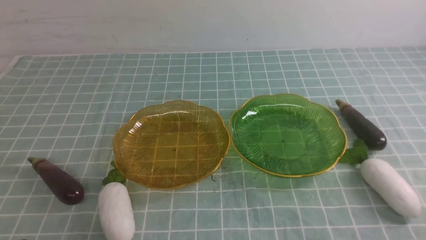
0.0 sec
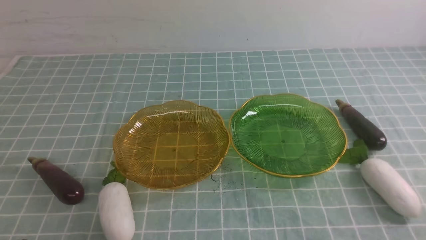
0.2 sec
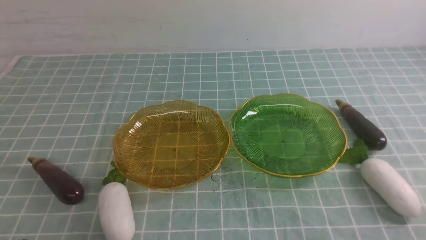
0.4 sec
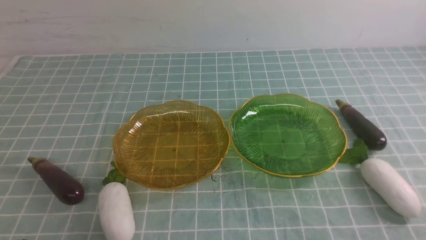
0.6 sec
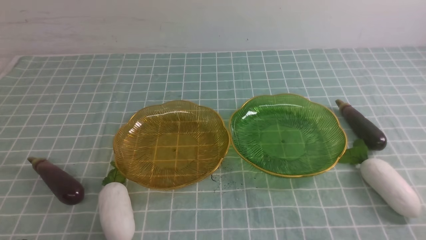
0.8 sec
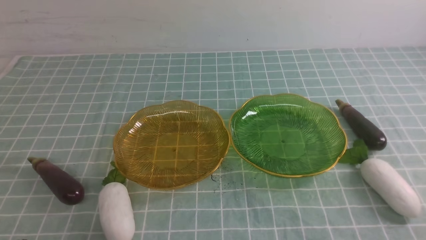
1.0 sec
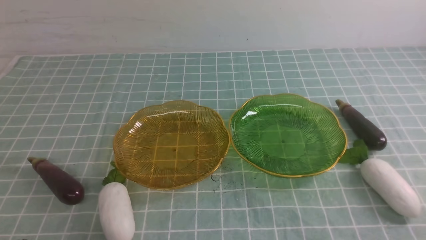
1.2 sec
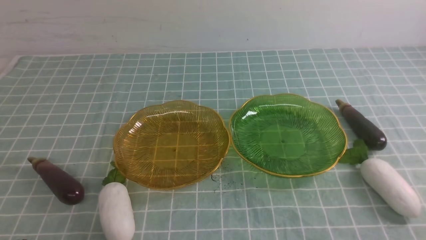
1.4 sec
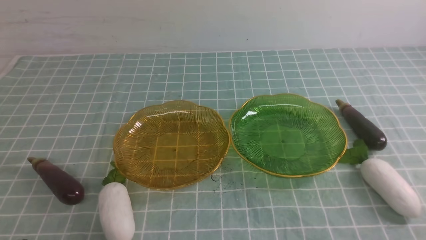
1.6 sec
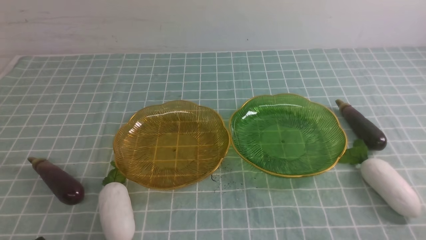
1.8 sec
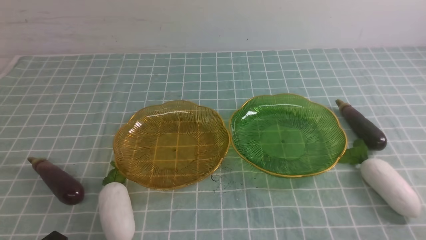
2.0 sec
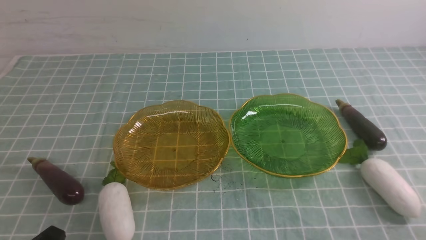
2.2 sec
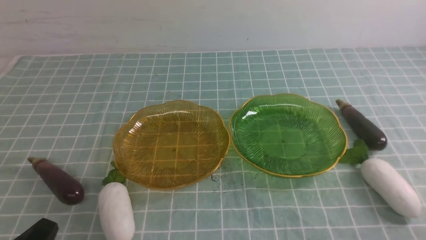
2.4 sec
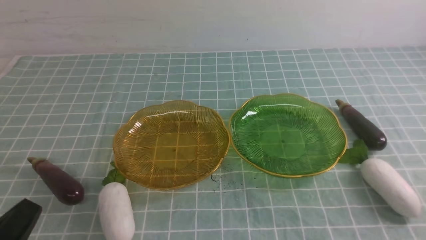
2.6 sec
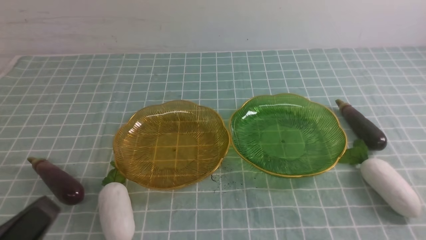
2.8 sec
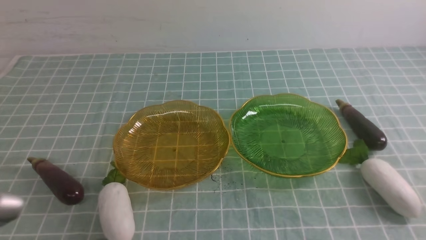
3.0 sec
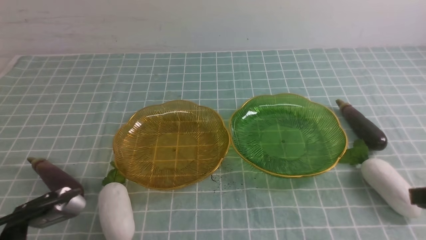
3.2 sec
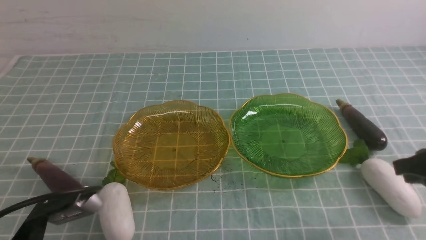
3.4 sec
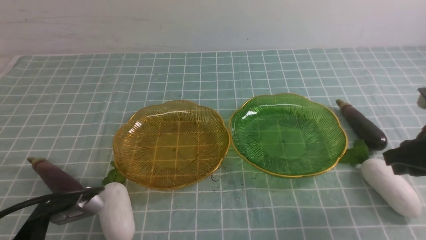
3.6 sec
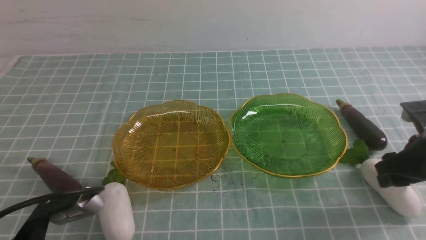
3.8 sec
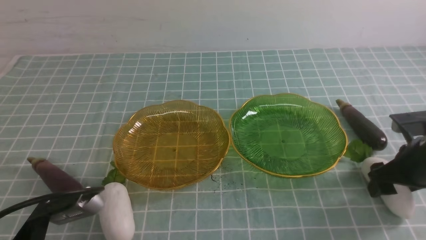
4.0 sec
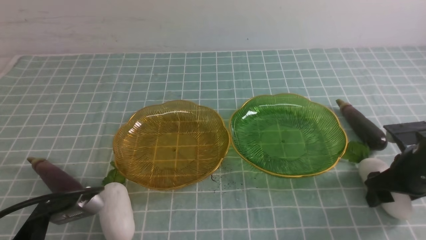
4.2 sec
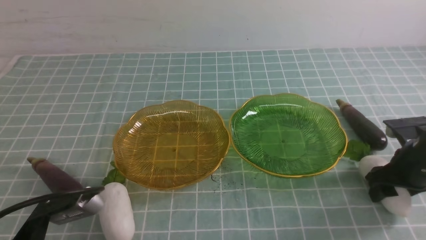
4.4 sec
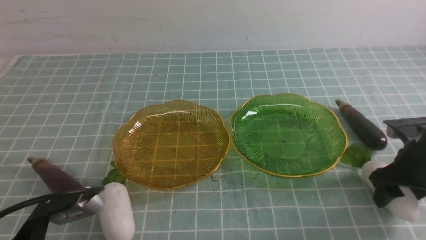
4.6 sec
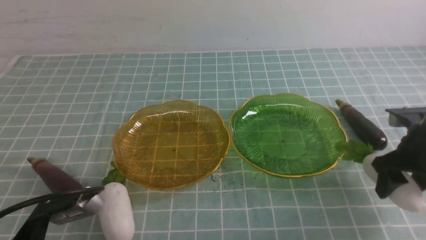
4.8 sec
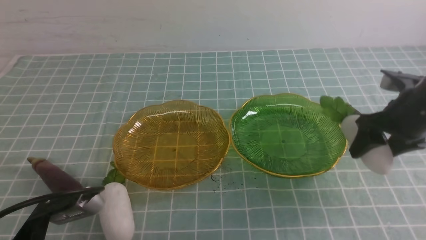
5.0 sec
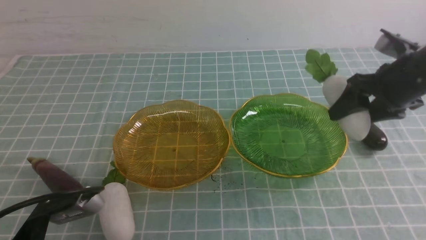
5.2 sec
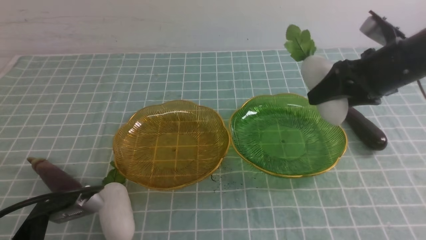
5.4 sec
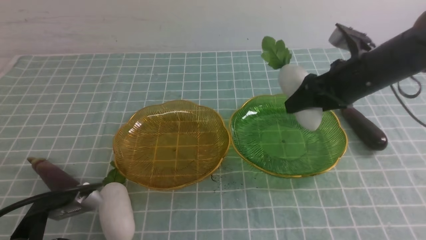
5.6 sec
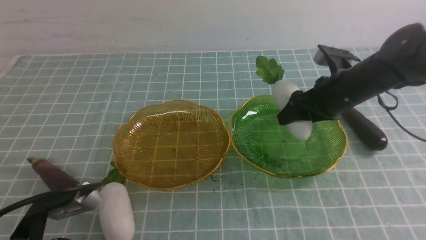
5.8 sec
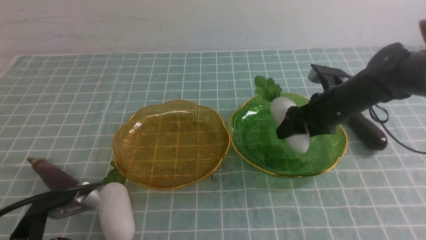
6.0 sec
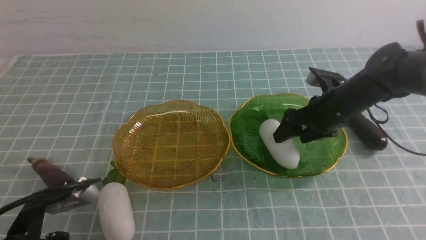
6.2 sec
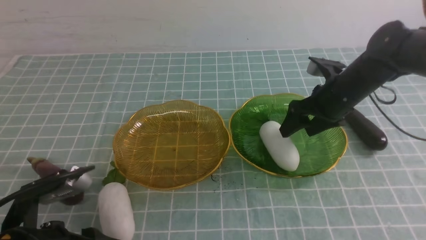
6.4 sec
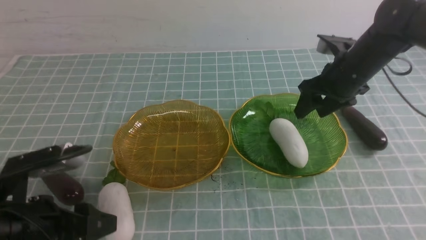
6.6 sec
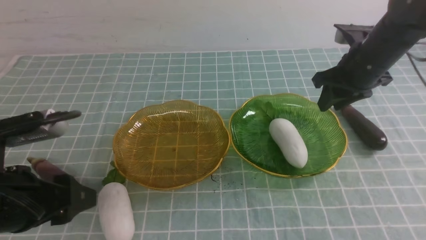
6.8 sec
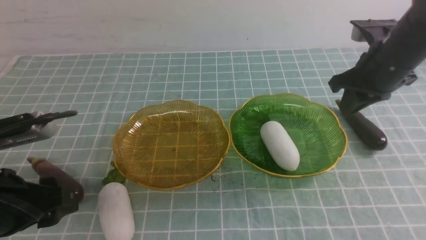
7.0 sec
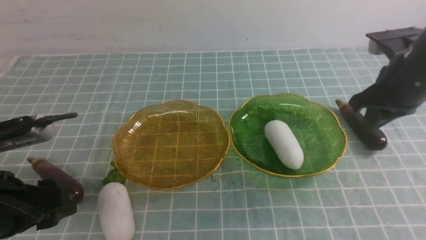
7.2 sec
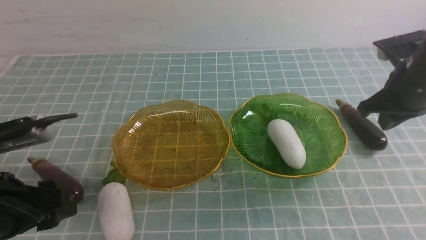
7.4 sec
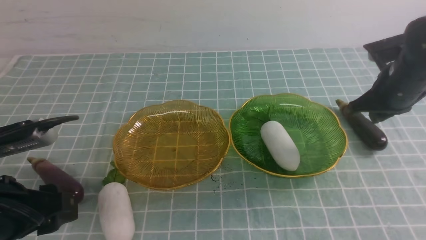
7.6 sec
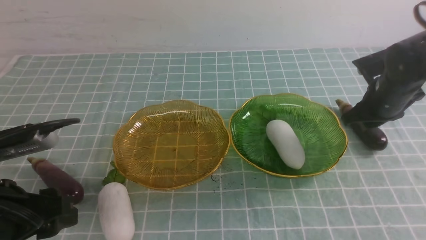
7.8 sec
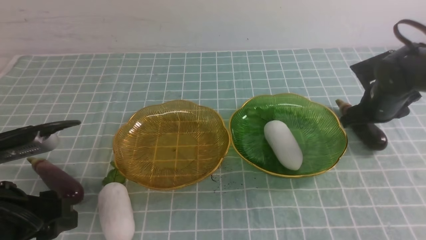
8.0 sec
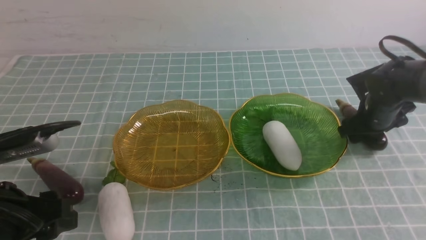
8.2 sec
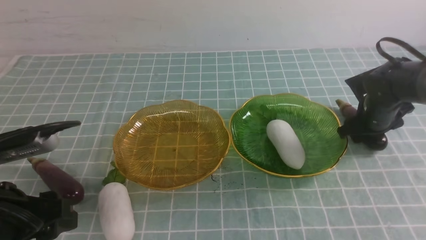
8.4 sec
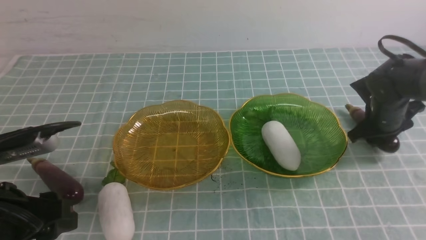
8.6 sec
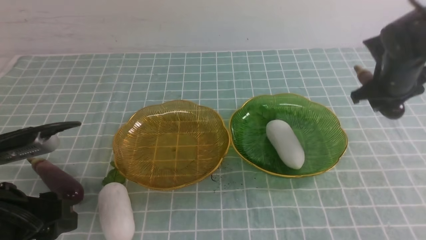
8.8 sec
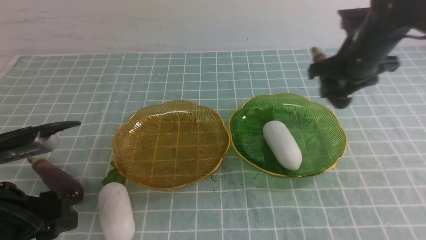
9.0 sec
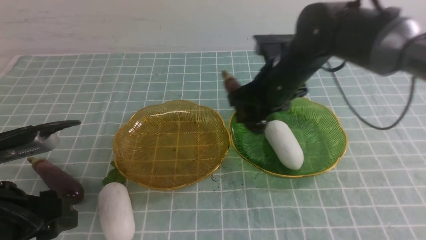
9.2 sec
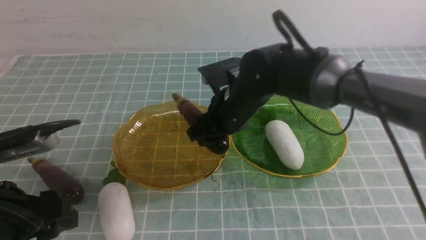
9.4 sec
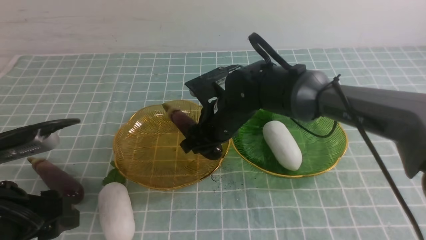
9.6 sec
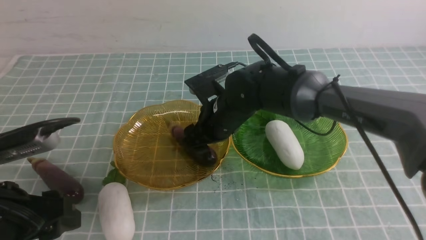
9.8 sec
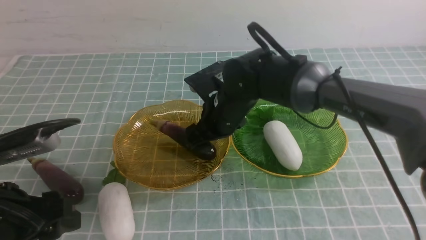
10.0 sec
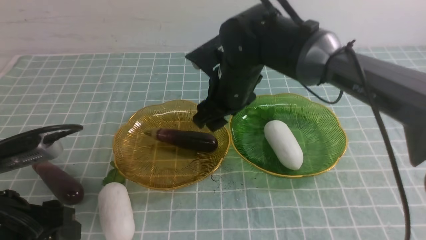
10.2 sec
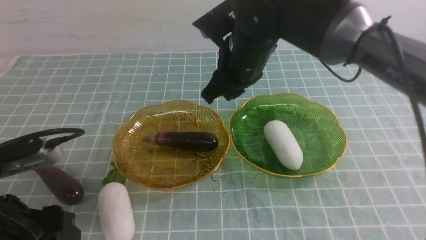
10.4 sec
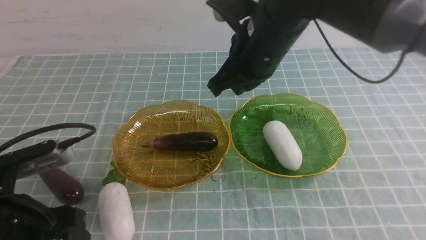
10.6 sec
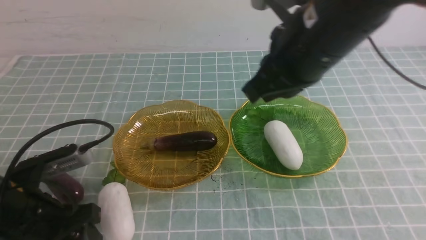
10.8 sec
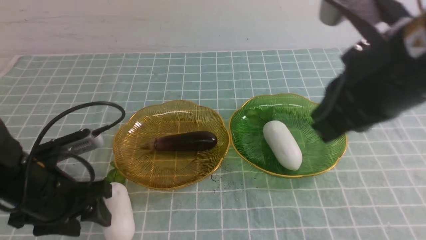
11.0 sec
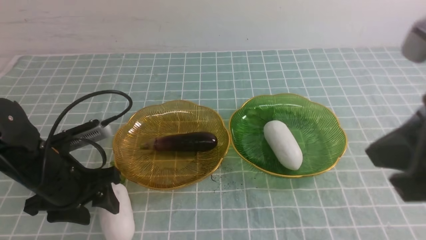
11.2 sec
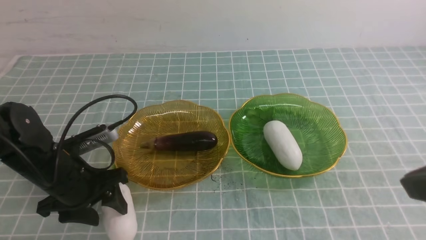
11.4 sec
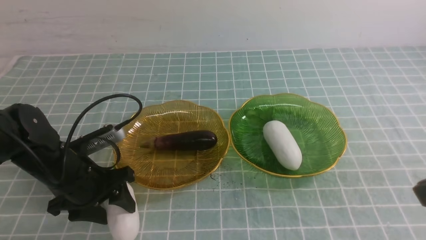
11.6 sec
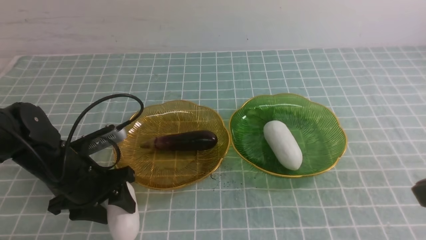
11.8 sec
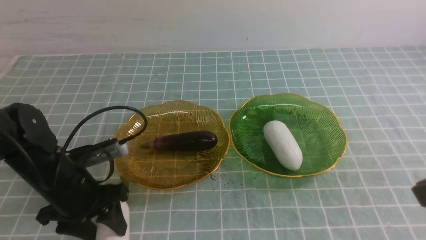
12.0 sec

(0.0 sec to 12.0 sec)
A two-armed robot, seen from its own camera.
Step, 0.0 sec - 6.2 sec: use the right arm to grab a radish and put it into the right plate.
Step, 6.4 sec - 10.0 sec: use the right arm to grab an eggplant and put it into the left plate.
3.0 sec - 4.4 sec: The left gripper moves about 5 cm; the right gripper is displaced forward and downward by roughly 20 cm, and opens.
4.4 sec - 6.0 sec: The right gripper is displaced to the left and forward by about 15 cm, and reaches some 10 cm upward, then returns.
6.0 sec - 7.6 sec: The right gripper goes approximately 5 cm to the right, and closes up. Meanwhile the left gripper goes approximately 5 cm upward, and opens.
7.6 sec - 9.0 sec: The right gripper heads to the left, covering about 10 cm, and opens.
9.0 sec - 10.4 sec: The right gripper moves to the left and upward, some 15 cm.
10.4 sec - 12.0 sec: The right gripper shifts about 30 cm backward and to the right. The left gripper shifts about 15 cm forward and downward.

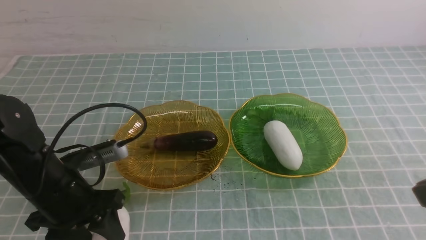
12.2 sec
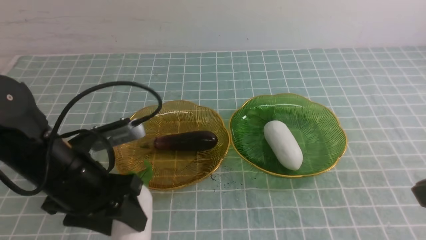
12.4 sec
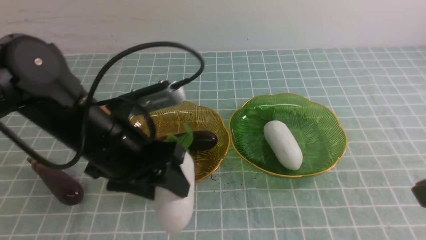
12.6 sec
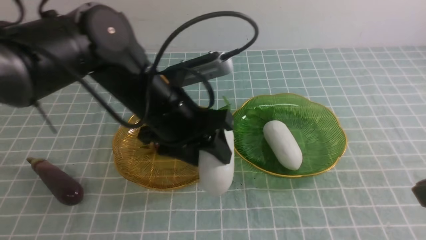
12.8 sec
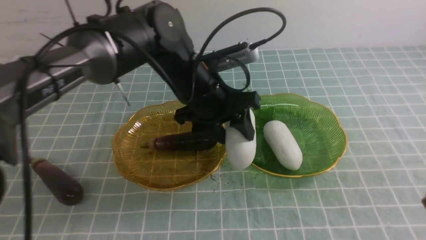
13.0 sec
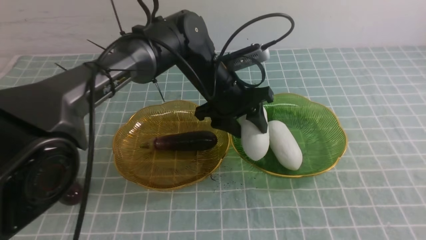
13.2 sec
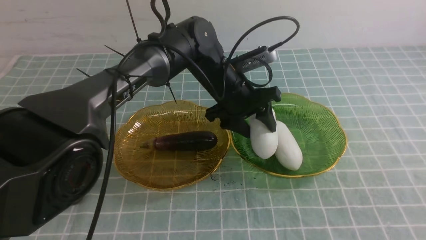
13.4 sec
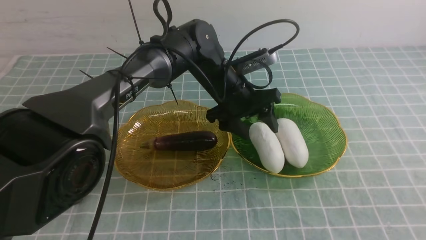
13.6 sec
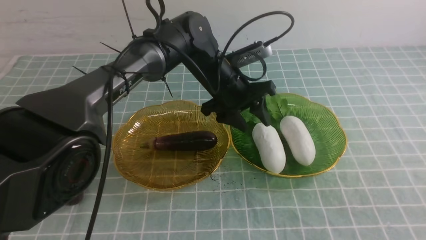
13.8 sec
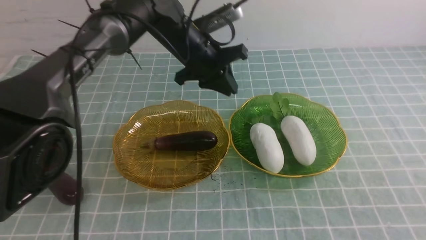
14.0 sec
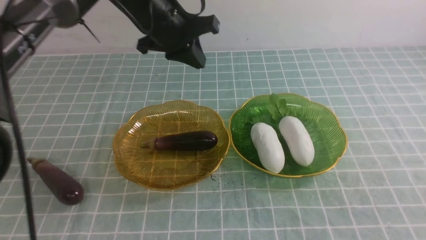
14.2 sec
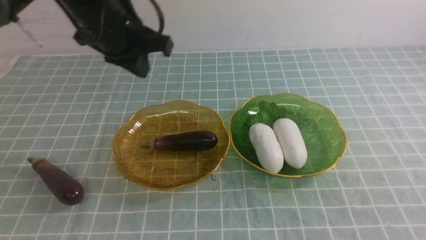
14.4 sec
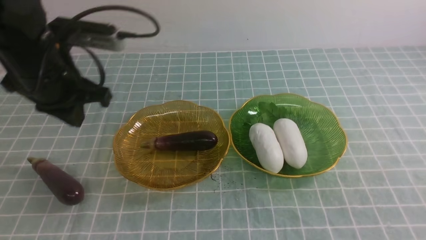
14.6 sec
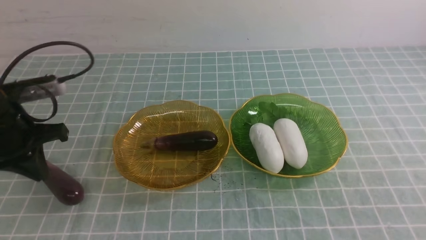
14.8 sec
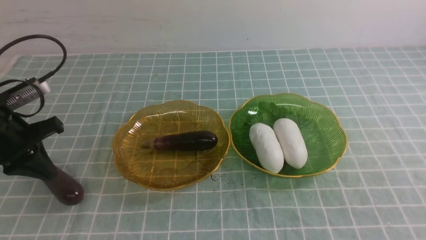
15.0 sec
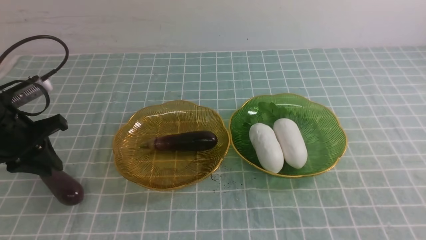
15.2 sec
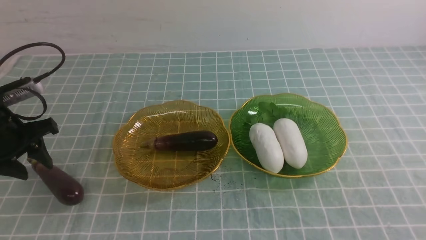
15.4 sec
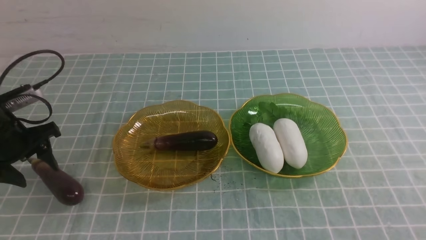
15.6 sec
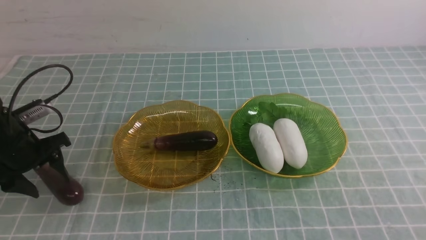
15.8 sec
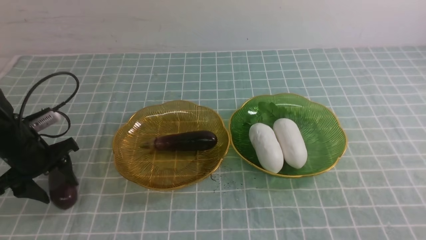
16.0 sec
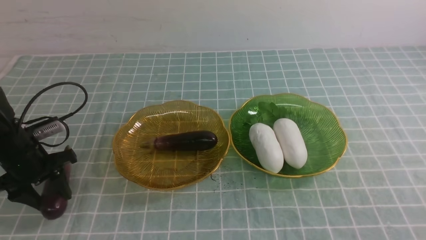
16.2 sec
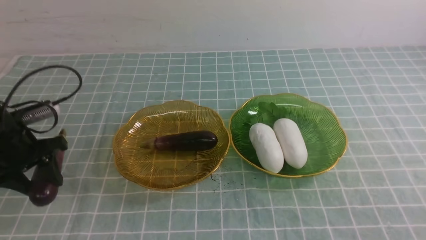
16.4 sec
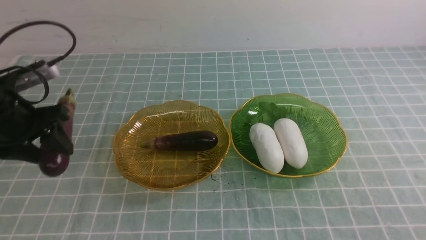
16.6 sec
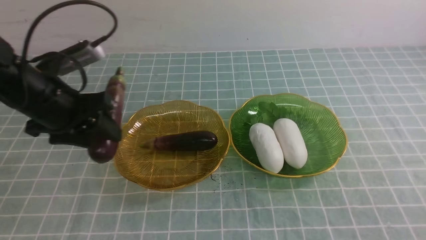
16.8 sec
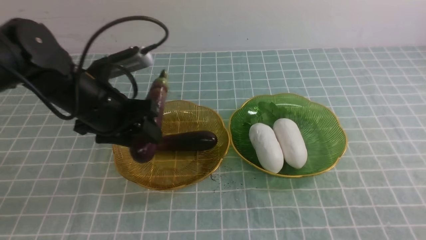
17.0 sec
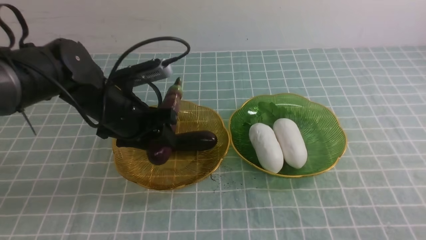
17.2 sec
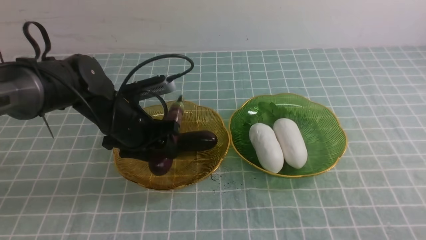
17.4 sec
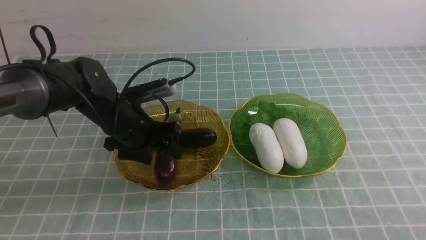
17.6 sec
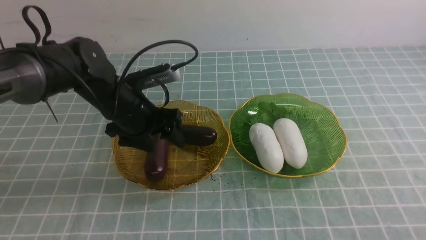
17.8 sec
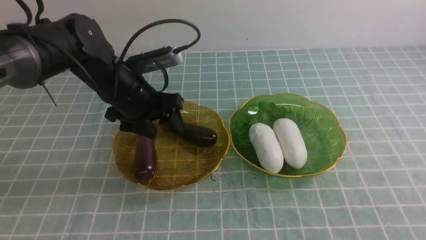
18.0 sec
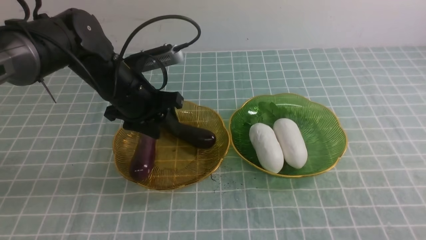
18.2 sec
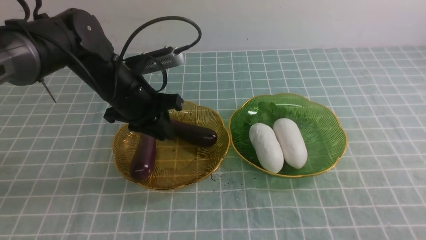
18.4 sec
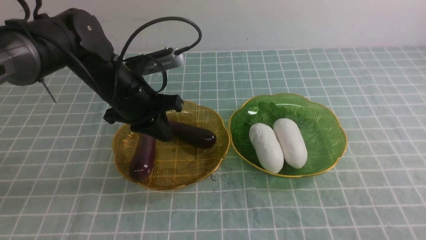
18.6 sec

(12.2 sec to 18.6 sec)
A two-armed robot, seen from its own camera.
Step, 13.6 sec - 17.8 sec: use the left arm to grab an eggplant and put it into the left plate.
12.2 sec - 13.8 sec: The right gripper is displaced backward by some 5 cm; the left gripper travels forward and to the right by approximately 25 cm.
13.8 sec - 15.4 sec: The left gripper is displaced to the left and backward by some 35 cm, and closes, then reopens.
15.4 sec - 17.0 sec: The left gripper heads to the right, covering approximately 15 cm.
17.0 sec - 18.6 sec: The right gripper is displaced downward by approximately 5 cm; the left gripper ends up about 5 cm from where it was, and closes its fingers.
